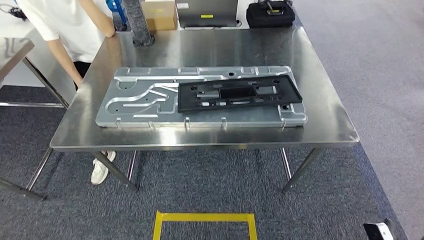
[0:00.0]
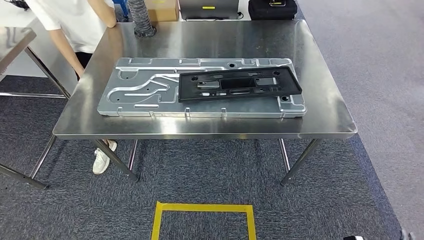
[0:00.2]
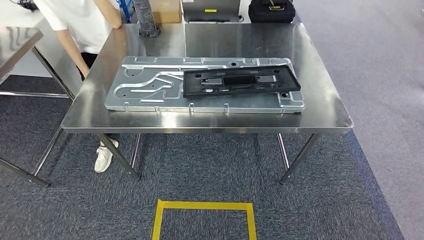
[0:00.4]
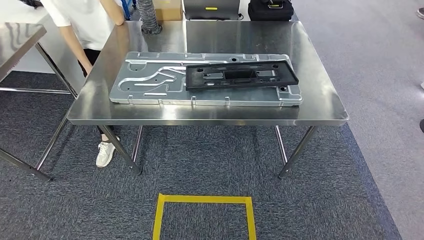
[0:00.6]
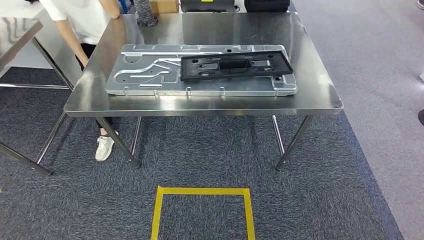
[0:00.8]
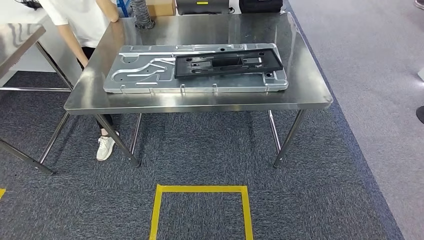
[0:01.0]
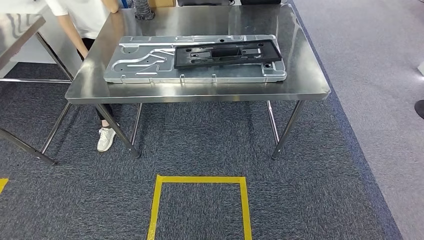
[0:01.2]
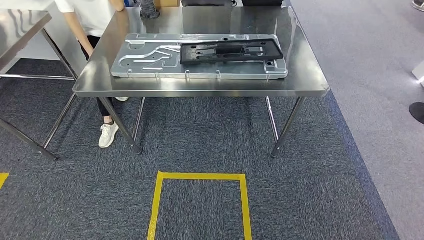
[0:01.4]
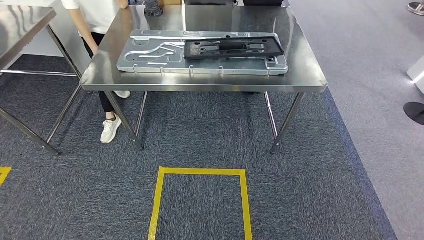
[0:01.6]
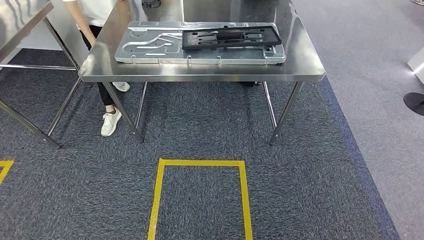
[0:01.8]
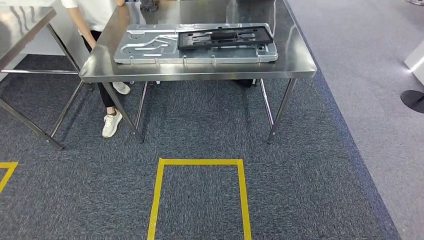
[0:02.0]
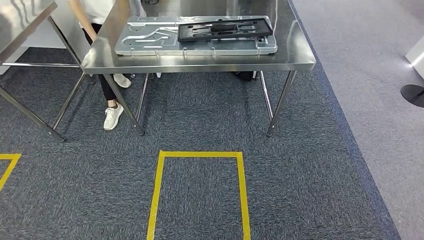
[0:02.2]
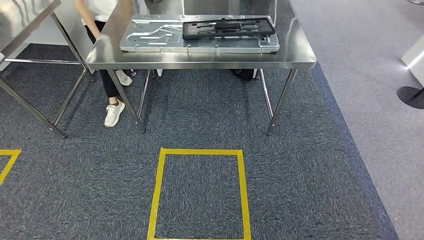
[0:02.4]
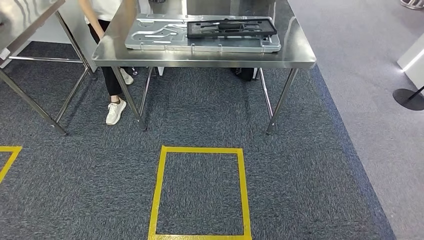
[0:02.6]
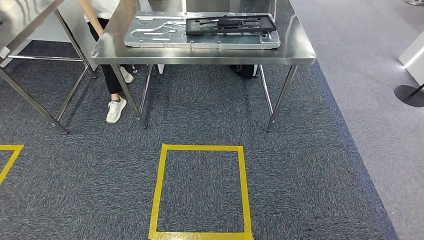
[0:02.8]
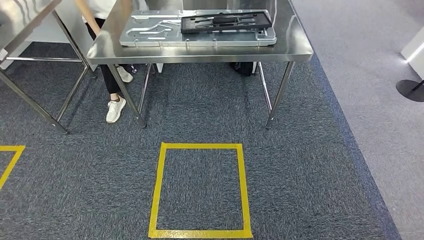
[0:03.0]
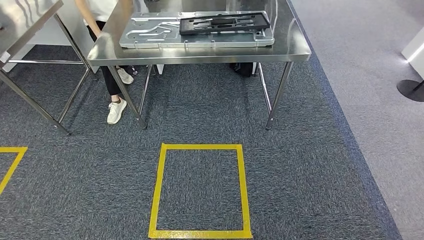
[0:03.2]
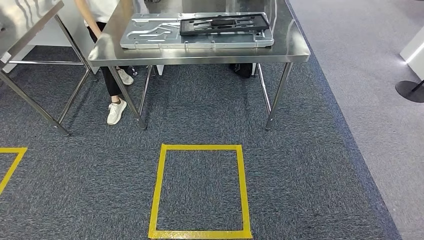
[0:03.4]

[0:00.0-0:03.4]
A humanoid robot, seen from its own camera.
Step, 0:00.0 to 0:03.4: Move to the initial position of the shelf.
